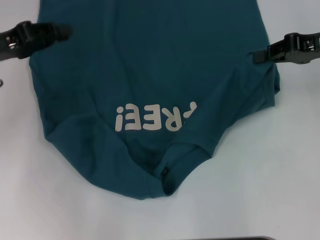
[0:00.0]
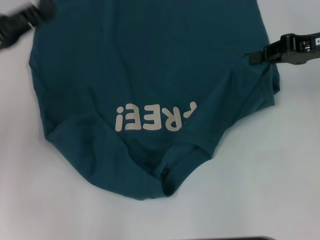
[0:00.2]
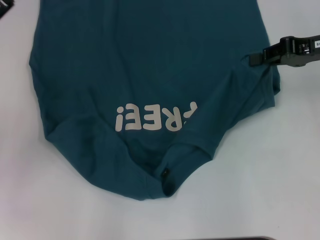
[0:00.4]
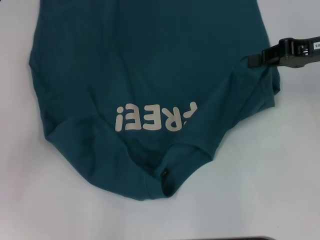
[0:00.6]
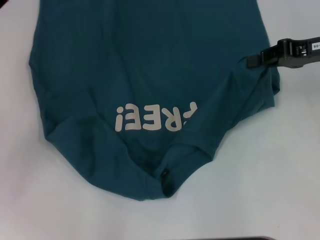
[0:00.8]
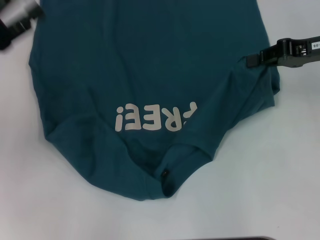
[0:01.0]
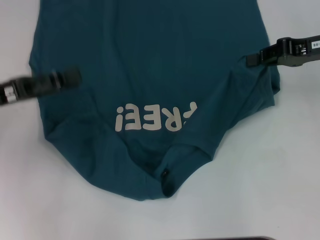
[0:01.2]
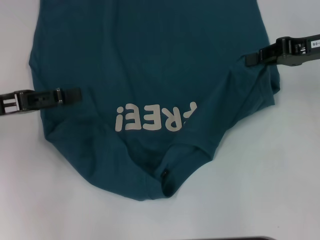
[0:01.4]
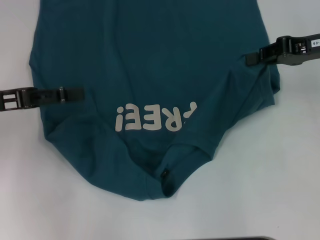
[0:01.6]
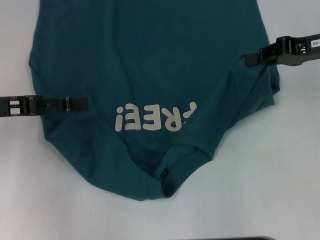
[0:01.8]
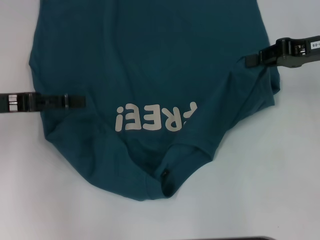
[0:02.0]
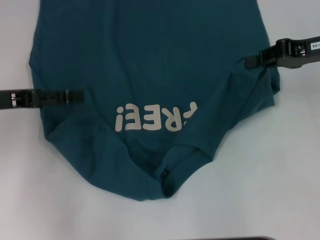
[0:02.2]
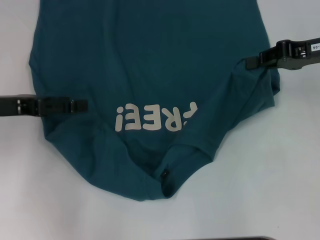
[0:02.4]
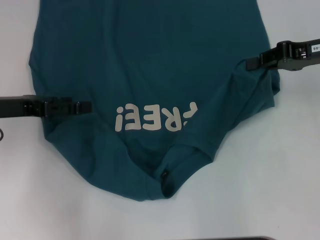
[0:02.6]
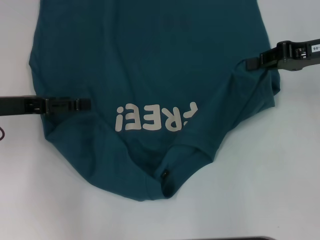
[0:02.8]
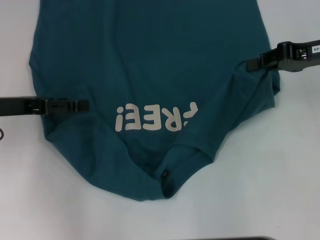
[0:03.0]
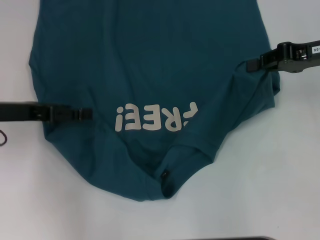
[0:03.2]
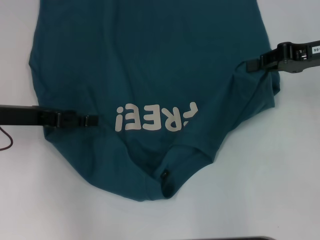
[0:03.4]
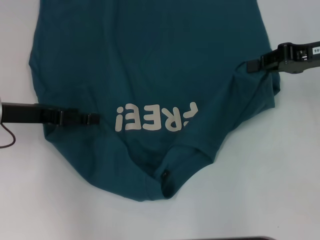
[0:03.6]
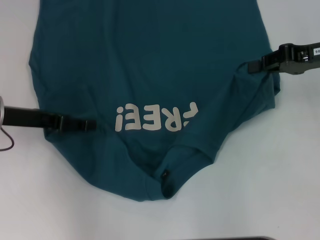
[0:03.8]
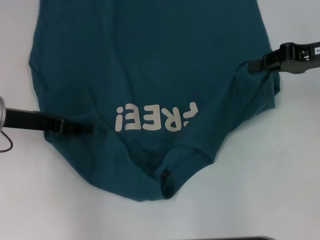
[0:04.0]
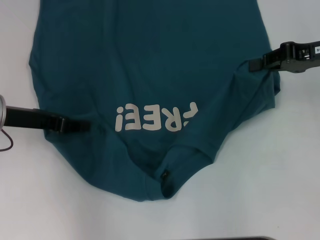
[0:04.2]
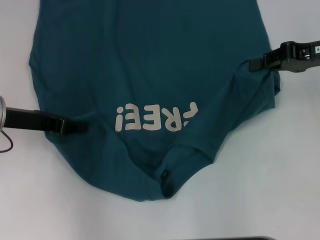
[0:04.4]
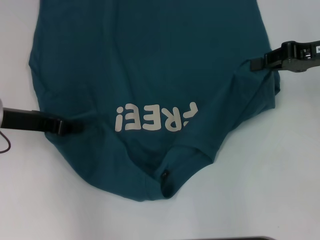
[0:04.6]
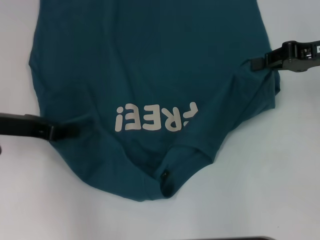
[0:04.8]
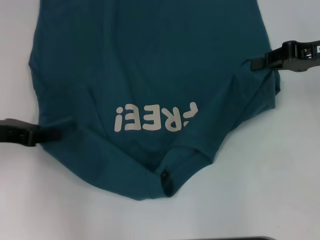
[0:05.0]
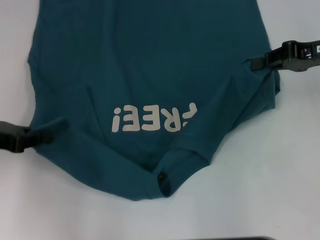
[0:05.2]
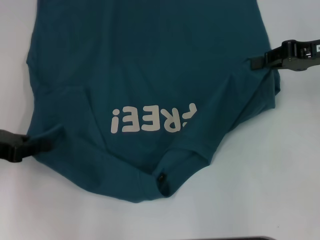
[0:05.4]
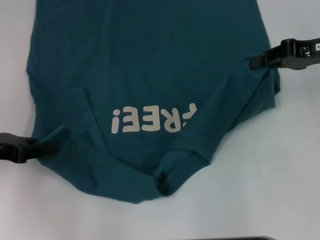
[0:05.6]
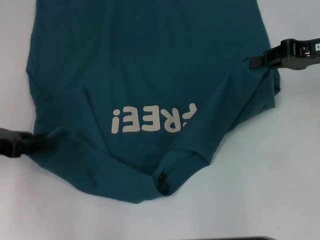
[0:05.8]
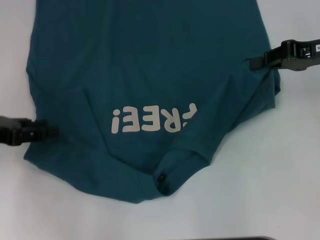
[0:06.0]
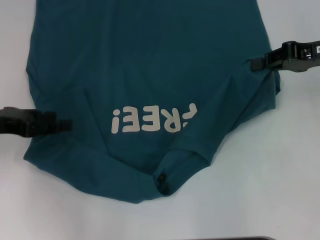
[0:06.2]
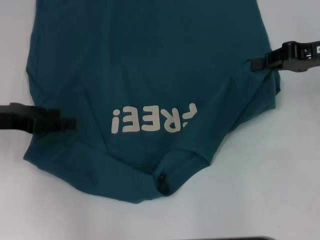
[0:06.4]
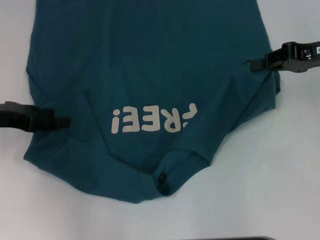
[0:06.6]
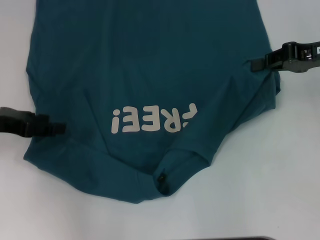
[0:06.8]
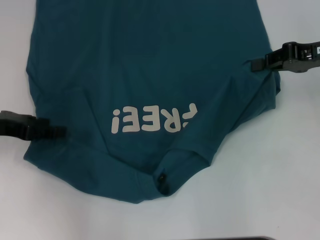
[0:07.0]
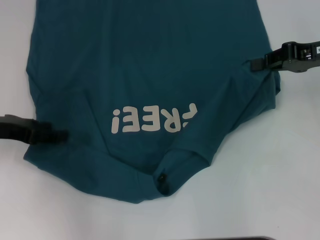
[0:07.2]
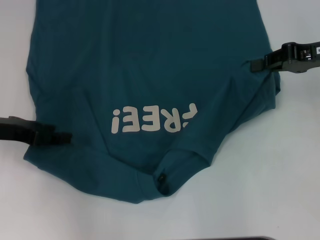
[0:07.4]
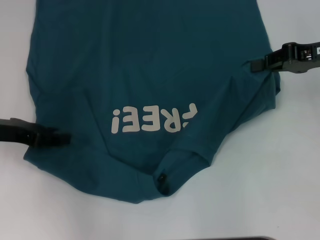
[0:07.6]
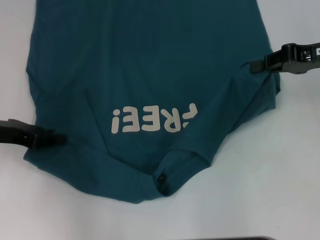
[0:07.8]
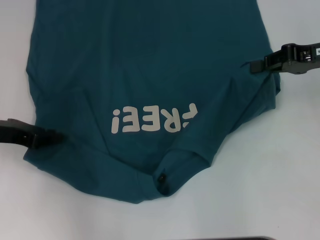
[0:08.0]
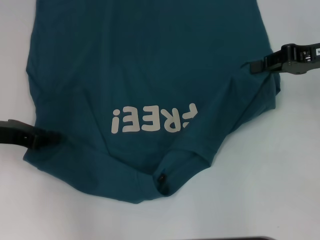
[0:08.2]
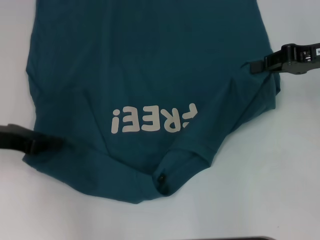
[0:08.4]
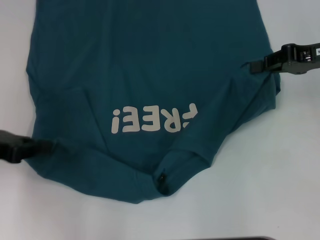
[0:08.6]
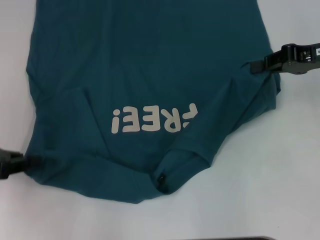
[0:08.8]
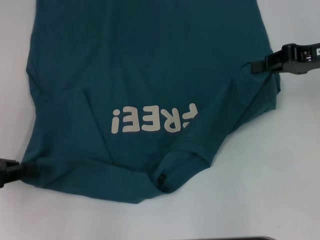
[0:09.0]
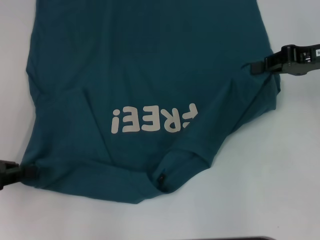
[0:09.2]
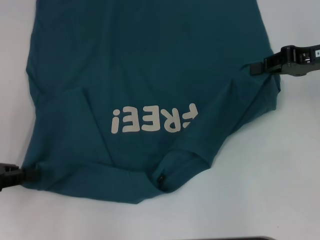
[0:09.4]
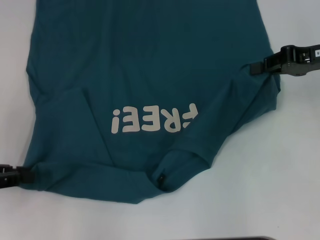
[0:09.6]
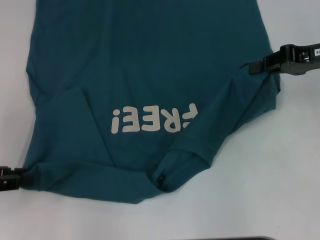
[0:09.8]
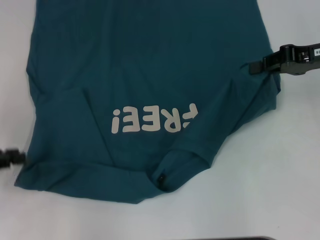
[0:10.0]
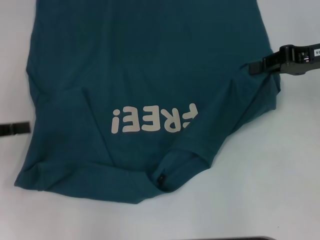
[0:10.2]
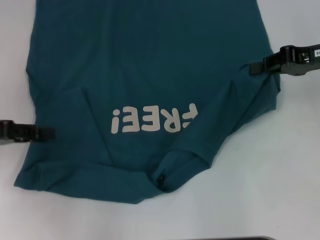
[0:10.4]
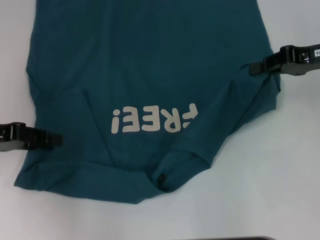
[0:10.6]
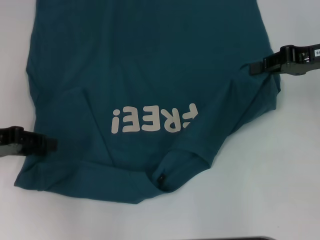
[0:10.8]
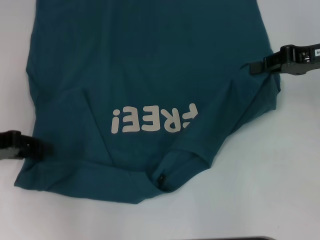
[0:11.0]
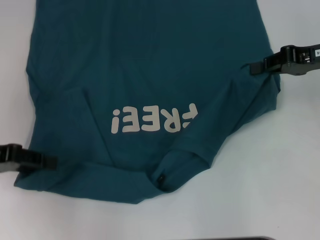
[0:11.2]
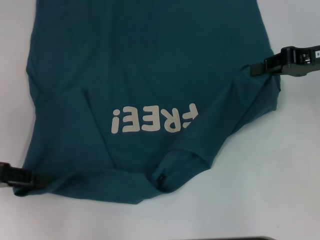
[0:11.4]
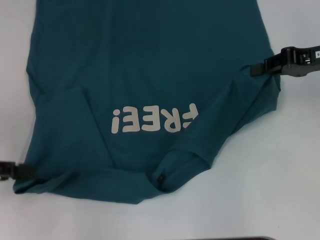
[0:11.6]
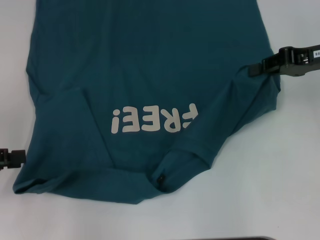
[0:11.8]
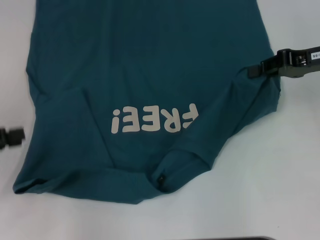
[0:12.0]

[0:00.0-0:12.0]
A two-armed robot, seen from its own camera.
0:00.0 to 0:01.6: The left gripper opens its fingers.
0:01.6 to 0:03.0: The grippers make only small movements.
0:03.0 to 0:04.4: The left gripper closes its fingers.
0:04.4 to 0:06.0: The left gripper travels to the left by roughly 5 cm.
0:06.0 to 0:07.6: There are only small adjustments of the grippers.
0:07.6 to 0:09.0: The left gripper goes approximately 5 cm backward, and closes.
0:09.0 to 0:10.4: The left gripper opens up.
0:10.4 to 0:12.0: The left gripper shifts by about 5 cm.

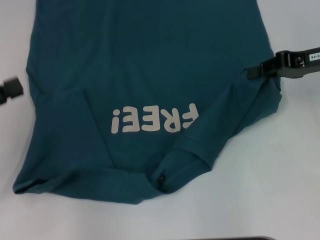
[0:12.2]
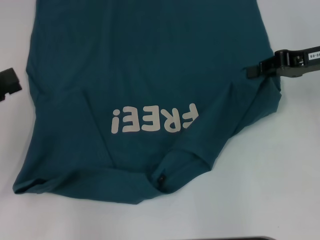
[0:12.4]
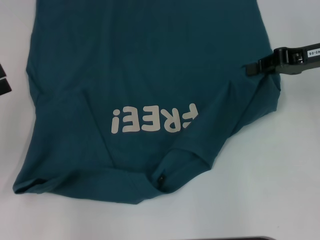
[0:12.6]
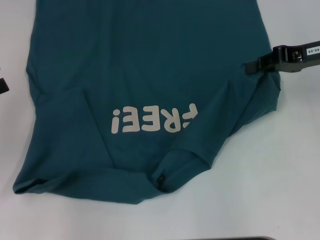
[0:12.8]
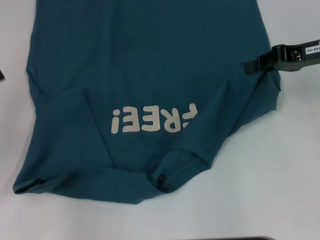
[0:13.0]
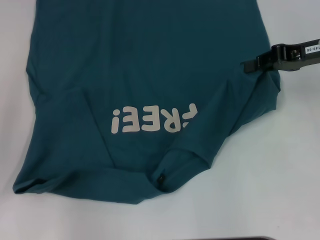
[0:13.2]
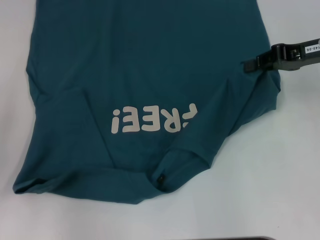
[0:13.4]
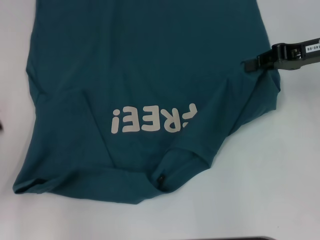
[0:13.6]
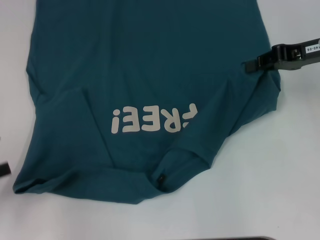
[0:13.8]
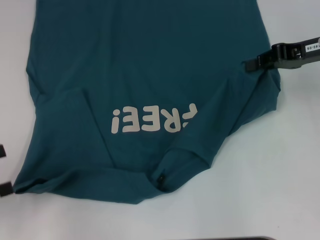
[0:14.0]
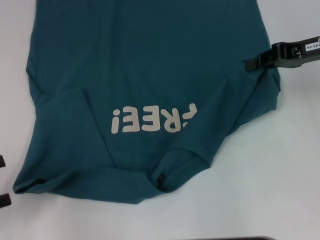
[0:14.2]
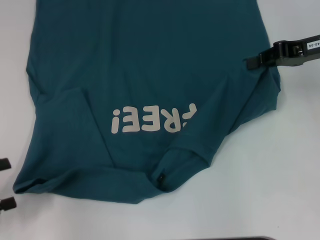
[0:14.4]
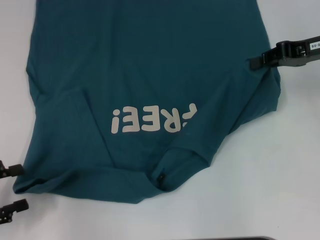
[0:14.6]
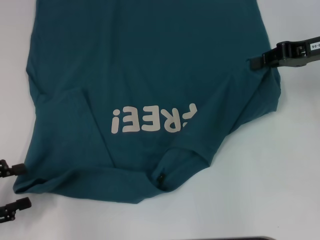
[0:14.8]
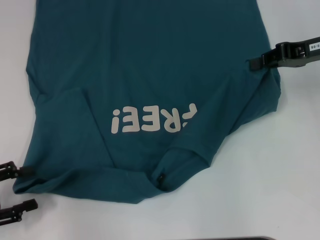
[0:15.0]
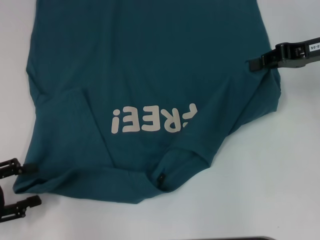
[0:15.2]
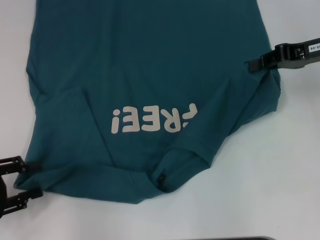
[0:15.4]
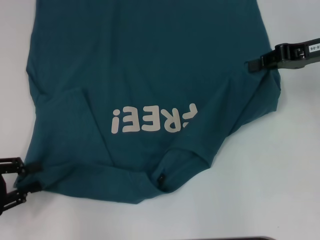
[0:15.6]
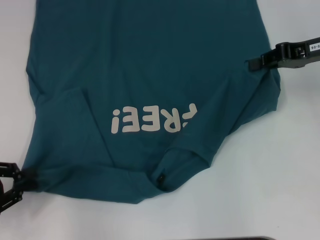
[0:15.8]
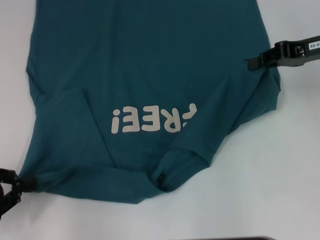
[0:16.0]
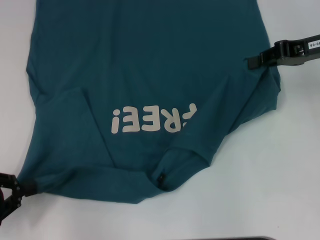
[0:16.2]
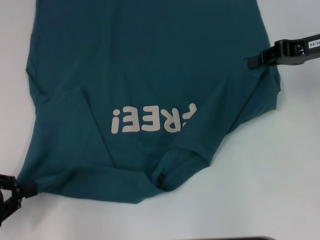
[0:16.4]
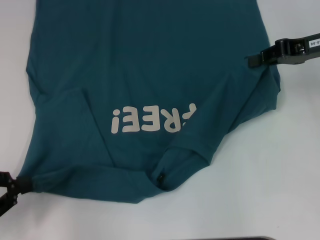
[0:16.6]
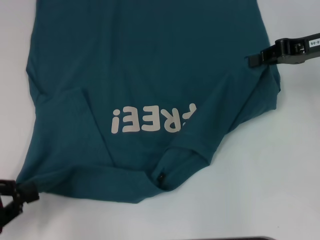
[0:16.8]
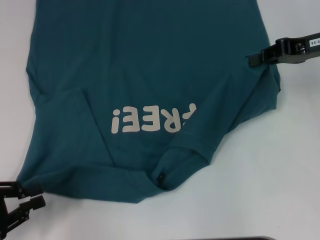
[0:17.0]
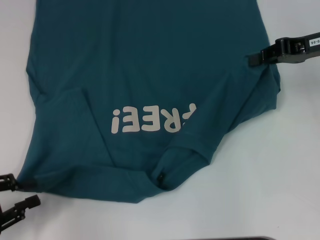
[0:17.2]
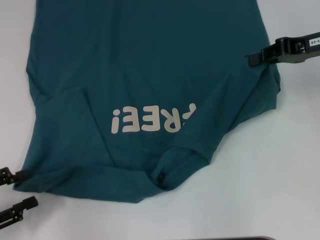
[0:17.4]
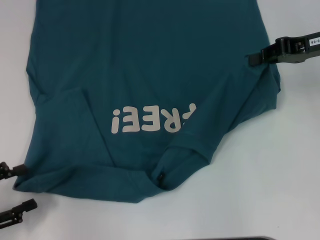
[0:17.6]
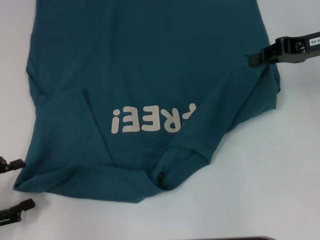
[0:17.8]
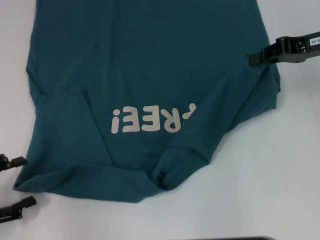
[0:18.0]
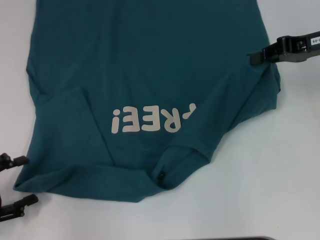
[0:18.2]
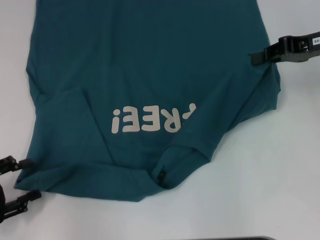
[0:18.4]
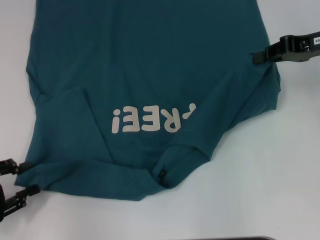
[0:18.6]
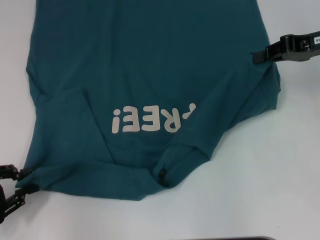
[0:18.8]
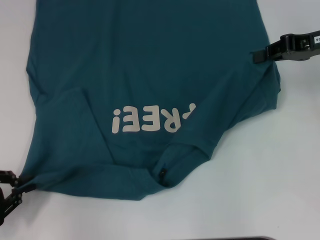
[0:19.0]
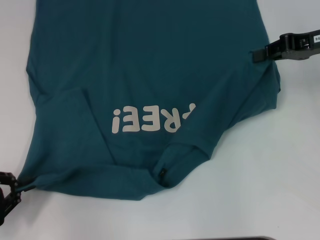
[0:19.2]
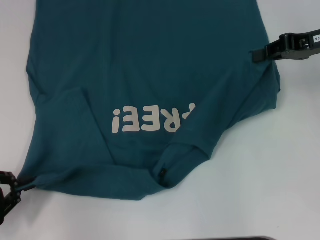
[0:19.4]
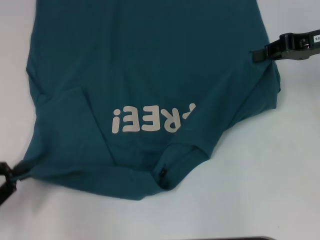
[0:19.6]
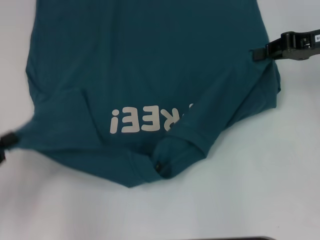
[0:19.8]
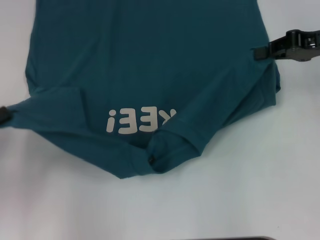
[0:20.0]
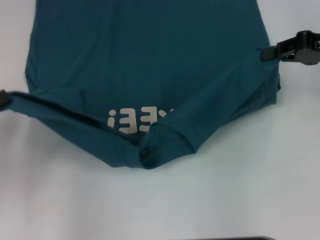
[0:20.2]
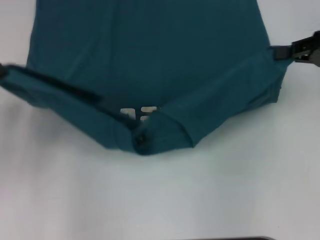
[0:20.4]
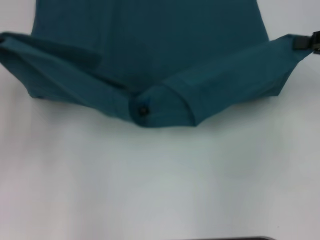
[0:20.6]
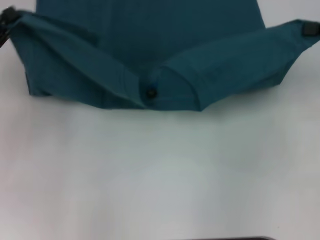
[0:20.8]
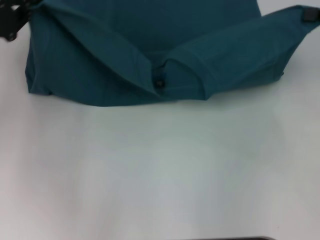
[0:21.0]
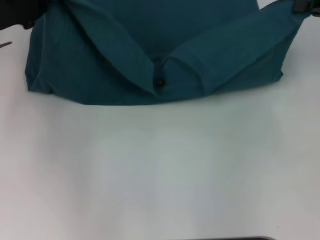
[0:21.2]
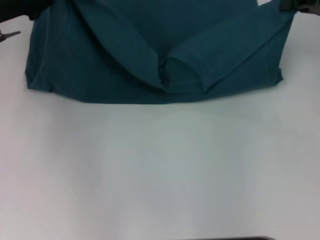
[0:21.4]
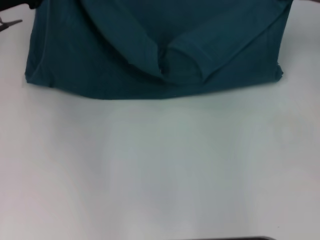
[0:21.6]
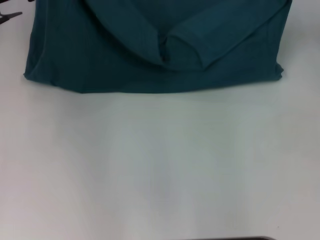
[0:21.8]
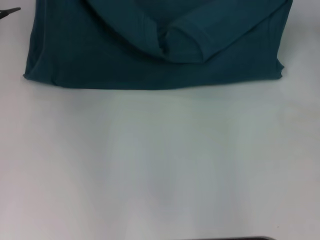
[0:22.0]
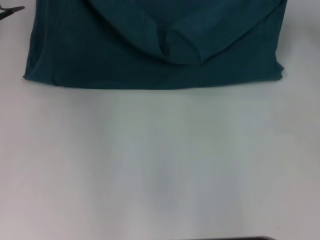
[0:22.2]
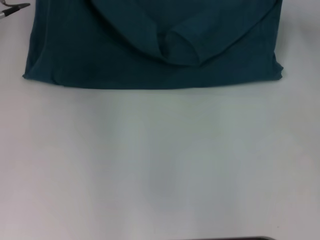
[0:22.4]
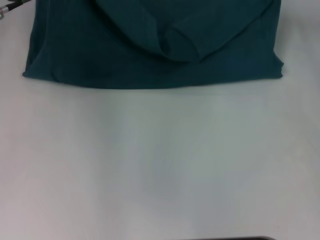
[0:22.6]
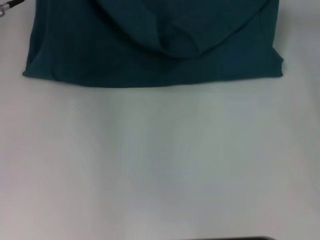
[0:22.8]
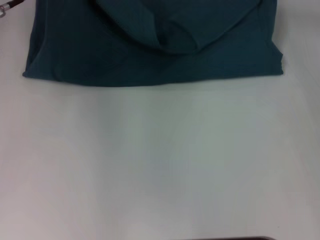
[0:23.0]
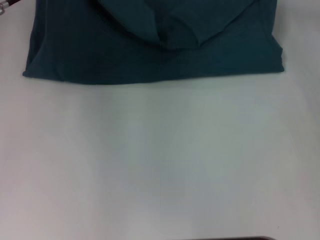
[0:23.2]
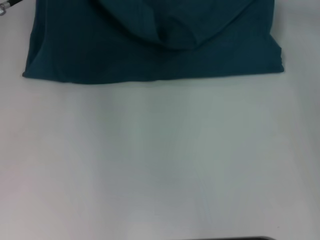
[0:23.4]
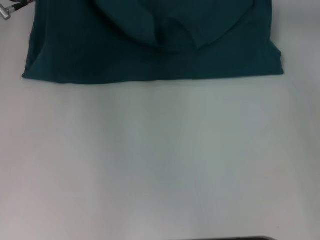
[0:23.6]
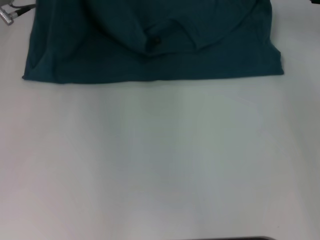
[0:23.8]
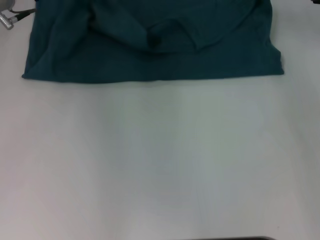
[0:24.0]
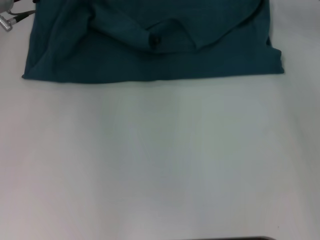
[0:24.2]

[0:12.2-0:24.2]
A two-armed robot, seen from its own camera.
0:12.2 to 0:13.8: The left gripper moves backward, about 5 cm, and opens up.
0:13.8 to 0:15.2: The left gripper is displaced downward by approximately 5 cm.
0:15.2 to 0:16.6: The left gripper closes up.
0:16.6 to 0:18.2: The left gripper opens up.
0:18.2 to 0:19.8: The left gripper closes its fingers.
0:19.8 to 0:21.2: The right gripper shifts by approximately 5 cm. Meanwhile the left gripper shifts about 20 cm forward.
0:21.2 to 0:22.6: The right gripper shifts some 10 cm forward and to the left. The left gripper heads forward, covering approximately 5 cm.
0:22.6 to 0:24.2: The right gripper shifts approximately 5 cm to the left.
